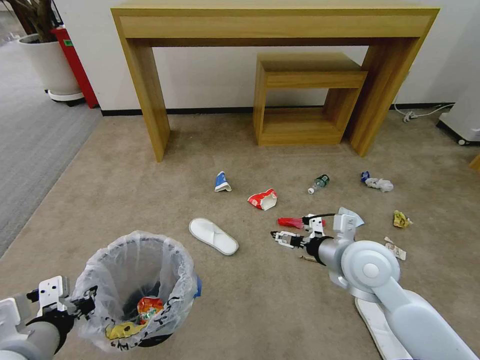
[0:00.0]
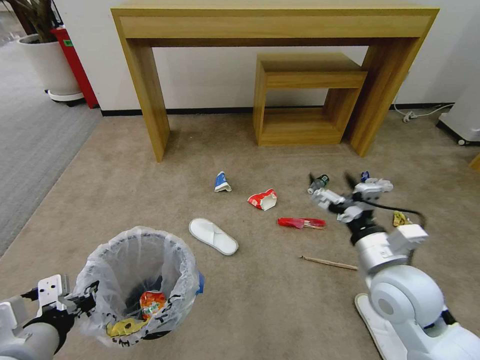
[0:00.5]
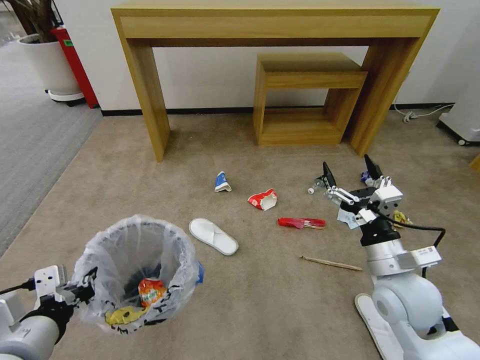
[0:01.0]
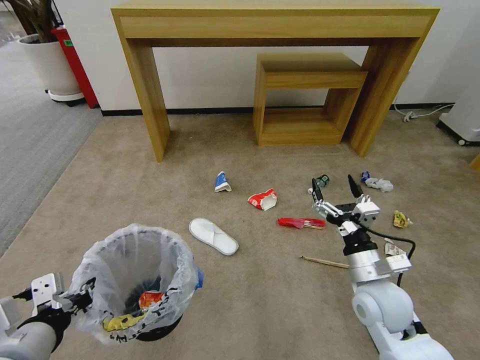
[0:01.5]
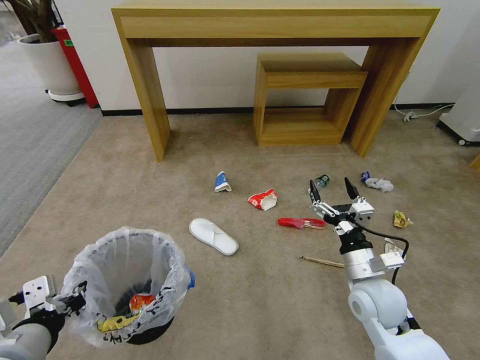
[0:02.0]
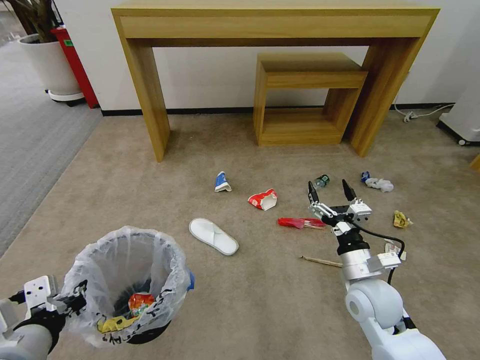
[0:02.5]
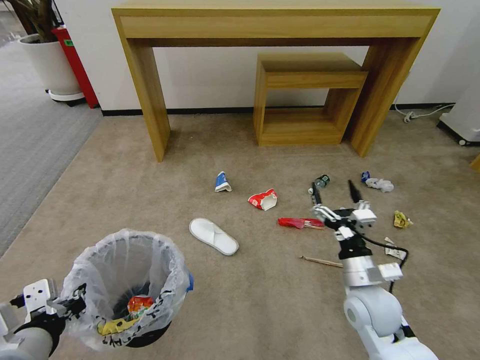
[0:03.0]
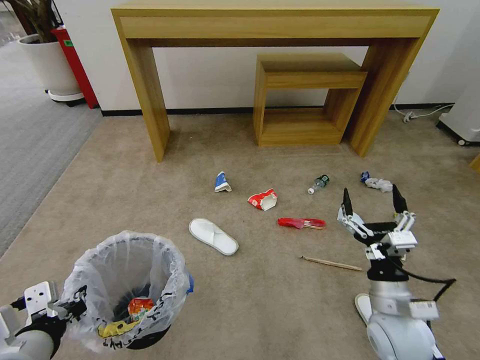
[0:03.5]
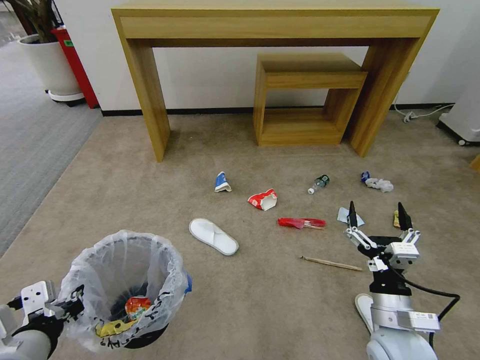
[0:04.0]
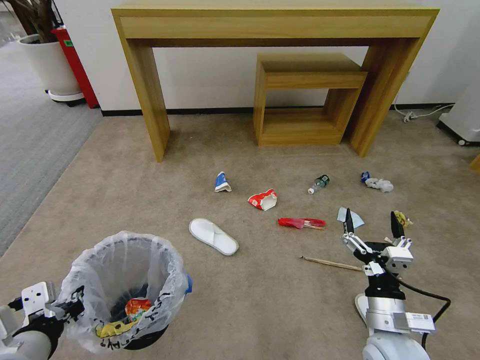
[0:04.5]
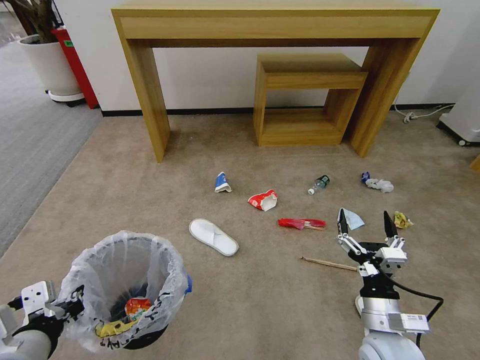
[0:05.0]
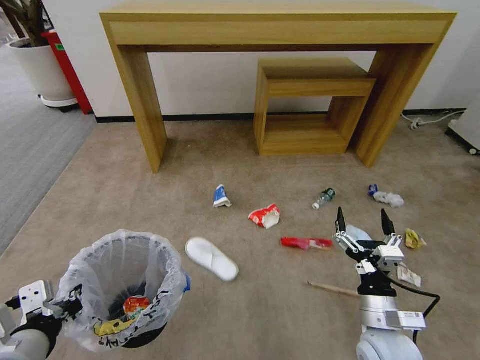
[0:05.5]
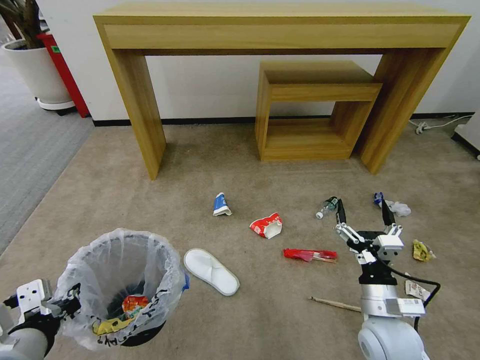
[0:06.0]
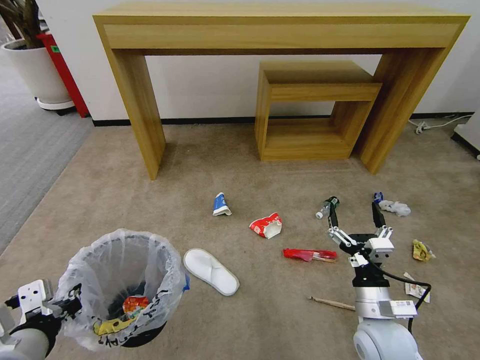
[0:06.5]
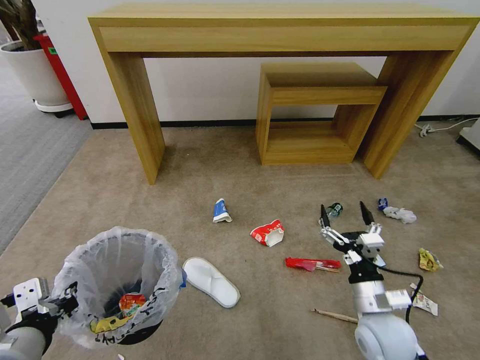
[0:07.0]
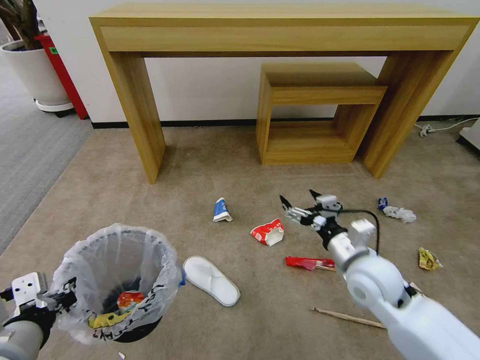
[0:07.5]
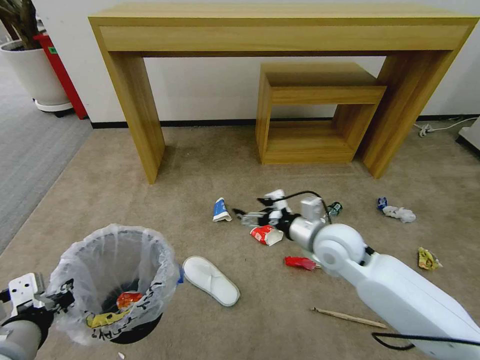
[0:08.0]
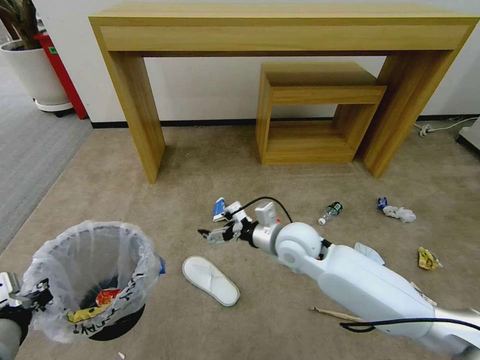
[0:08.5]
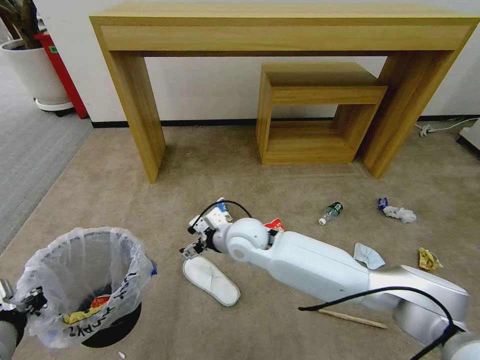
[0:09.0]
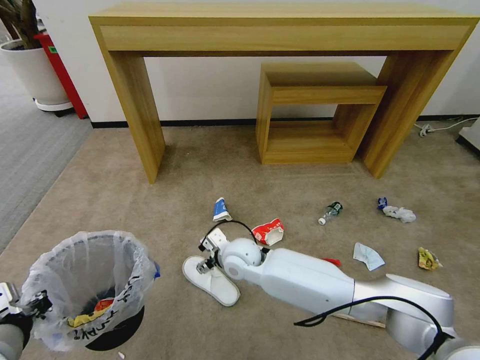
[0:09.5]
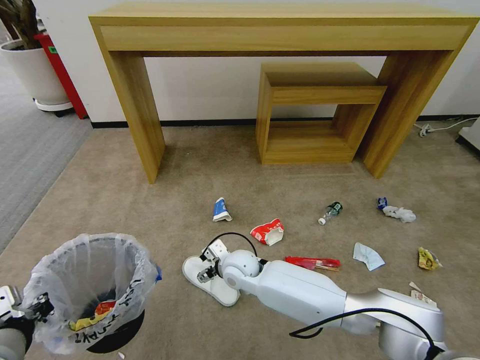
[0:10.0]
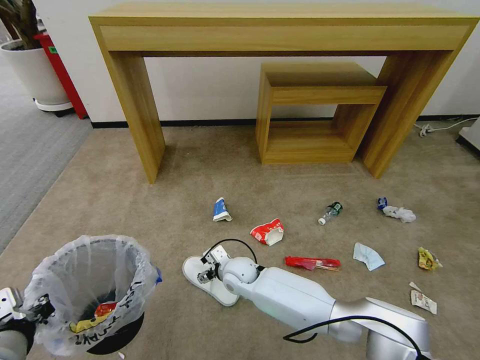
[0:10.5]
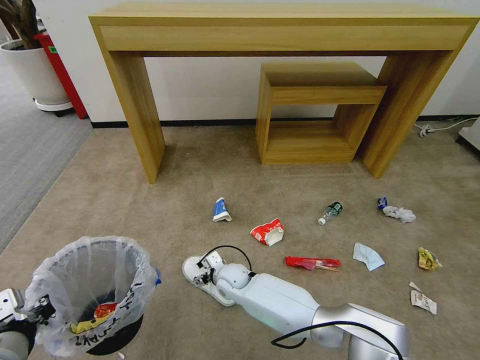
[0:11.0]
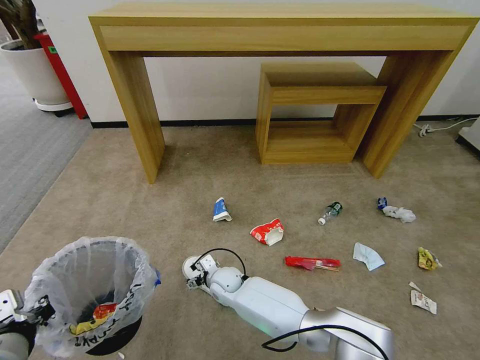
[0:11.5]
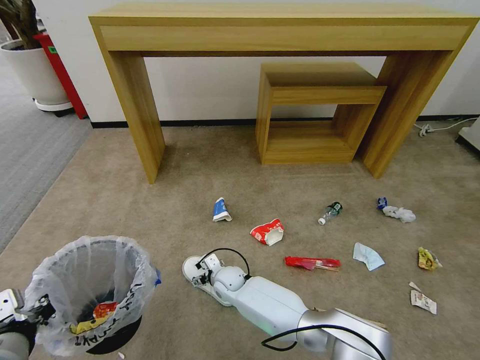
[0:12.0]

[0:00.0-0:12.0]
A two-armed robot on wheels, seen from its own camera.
Task of the whole recording: Pick up the trash bin and place the garbage on the floor into it.
0.0 to 2.0 s: The right gripper shifts some 10 cm downward.
2.0 to 4.0 s: The right gripper is displaced backward by approximately 10 cm.
6.0 to 8.0 s: The right gripper heads forward, upward and to the left, covering approximately 20 cm.
8.0 to 10.0 s: The right gripper moves to the left and downward, about 25 cm.
10.0 to 12.0 s: The right gripper travels downward by approximately 10 cm.

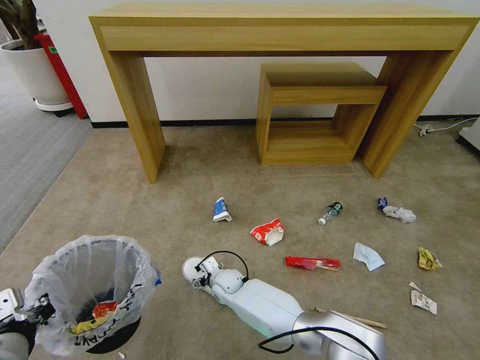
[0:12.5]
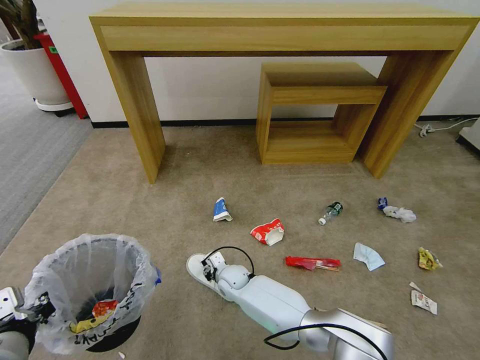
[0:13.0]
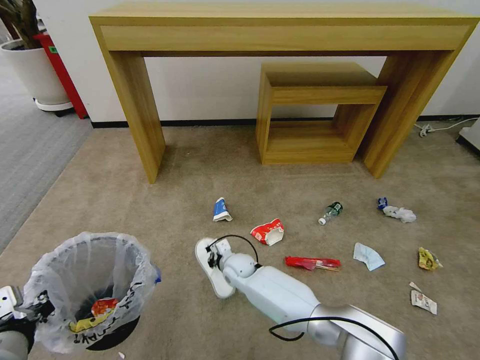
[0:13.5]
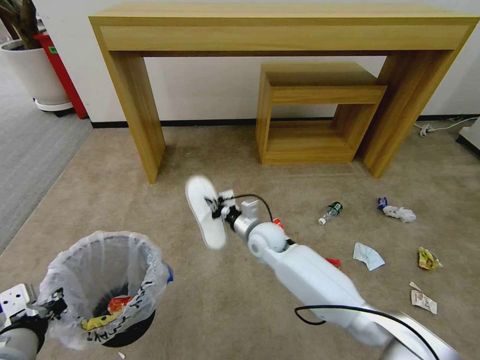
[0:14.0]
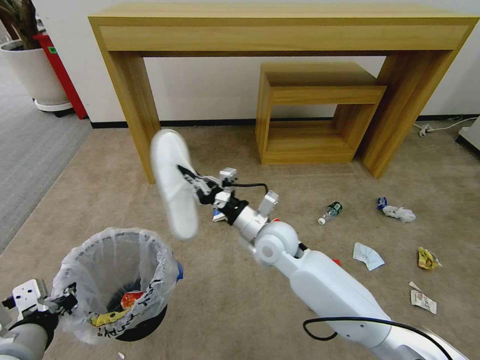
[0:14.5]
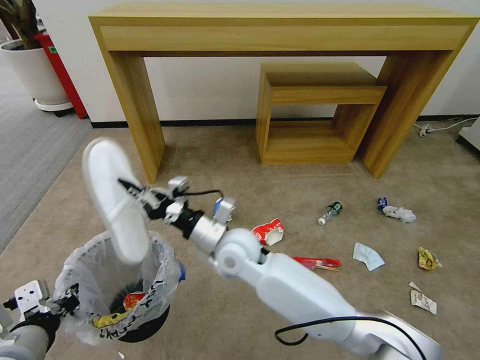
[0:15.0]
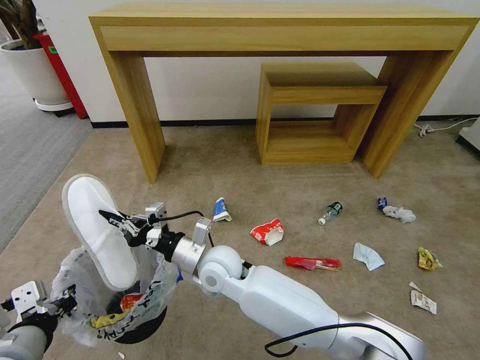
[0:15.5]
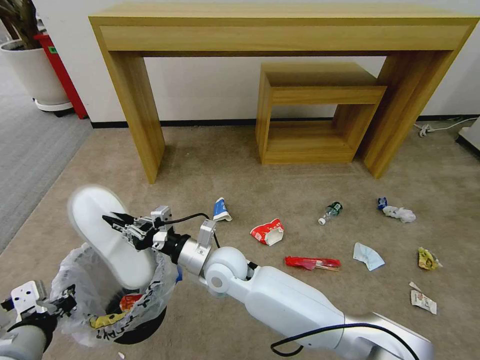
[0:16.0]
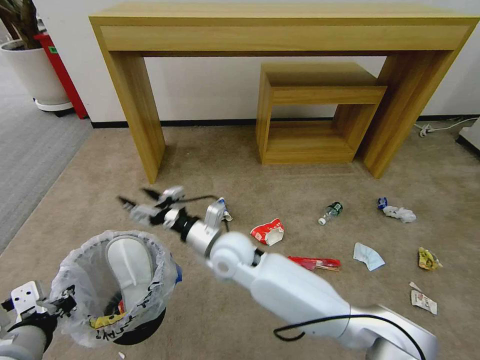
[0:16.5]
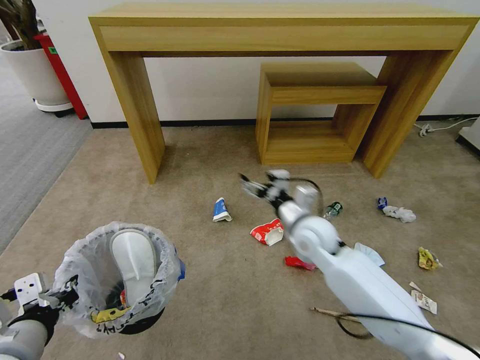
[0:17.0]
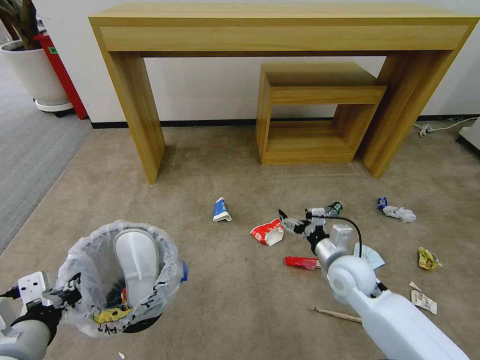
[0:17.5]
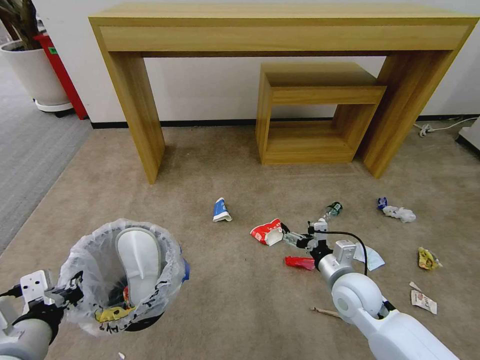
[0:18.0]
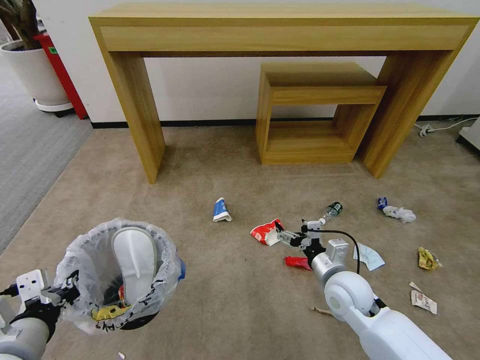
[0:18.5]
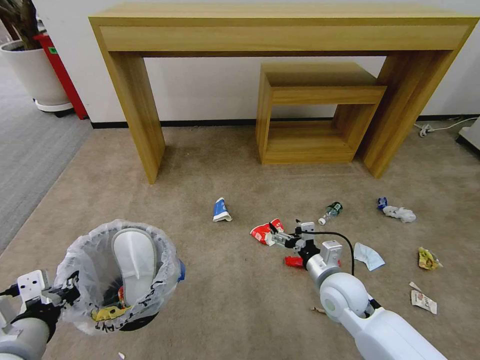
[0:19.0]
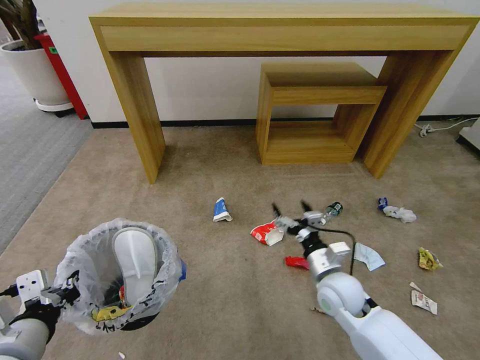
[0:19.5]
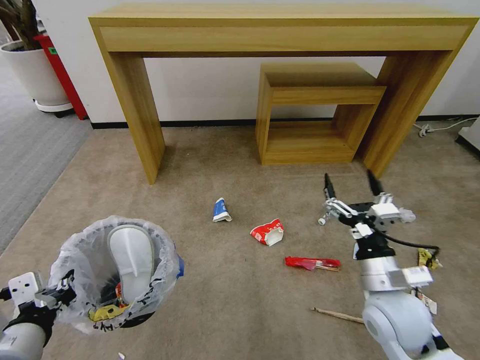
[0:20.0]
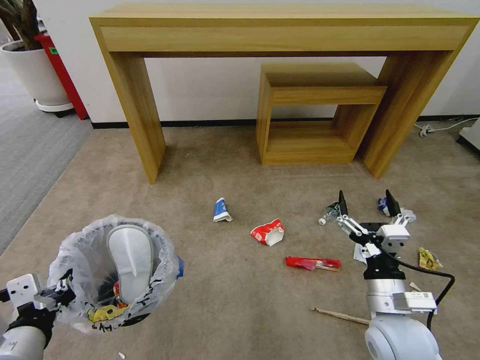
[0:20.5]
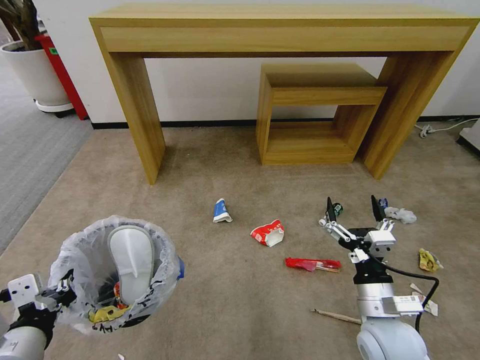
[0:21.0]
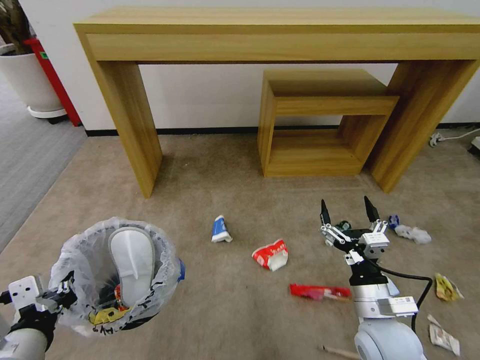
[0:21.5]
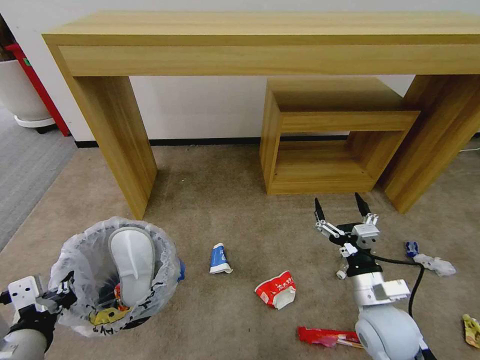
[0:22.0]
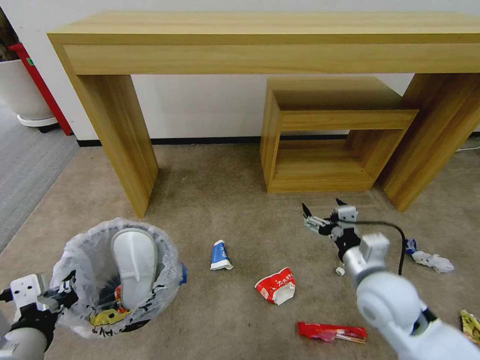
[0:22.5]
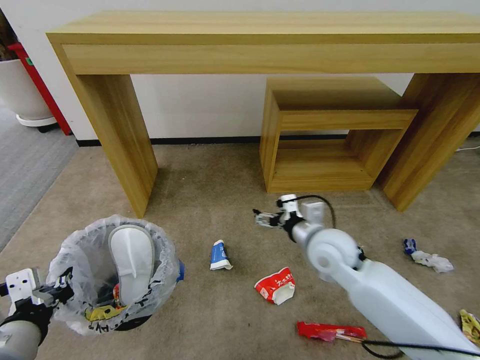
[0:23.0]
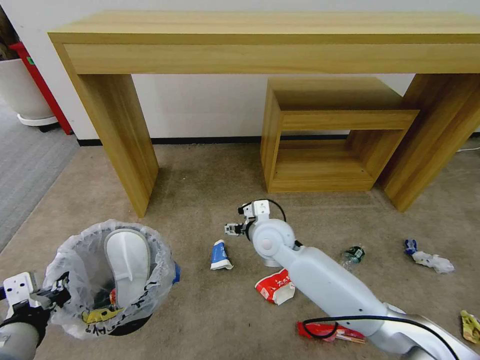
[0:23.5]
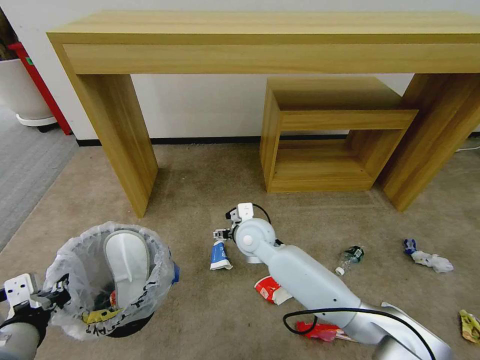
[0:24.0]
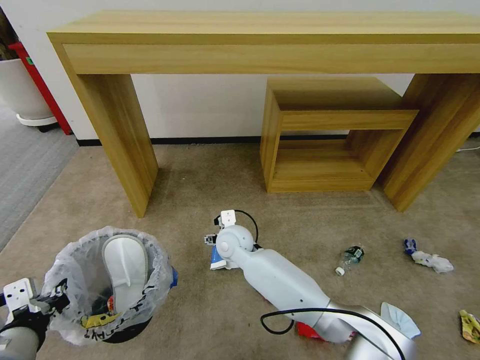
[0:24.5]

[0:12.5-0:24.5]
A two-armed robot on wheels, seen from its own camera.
Task of the whole recording: Pick up the trash bin and place the garbage on the floor into it.
12.5 to 14.5 s: The right gripper moves upward and to the right, roughly 25 cm, and closes its fingers.
14.5 to 16.5 s: The right gripper travels to the left by roughly 10 cm, and opens.
16.5 to 18.5 s: The right gripper shifts about 25 cm to the right.
18.5 to 20.5 s: The right gripper goes some 10 cm backward and upward.
20.5 to 22.5 s: The right gripper moves forward, some 5 cm.
22.5 to 24.5 s: The right gripper moves to the left and forward, approximately 30 cm.

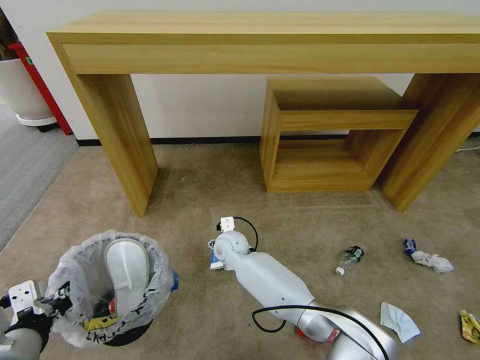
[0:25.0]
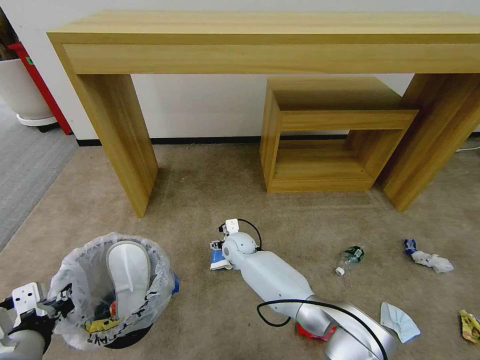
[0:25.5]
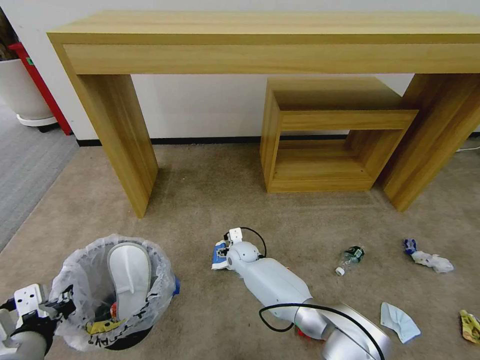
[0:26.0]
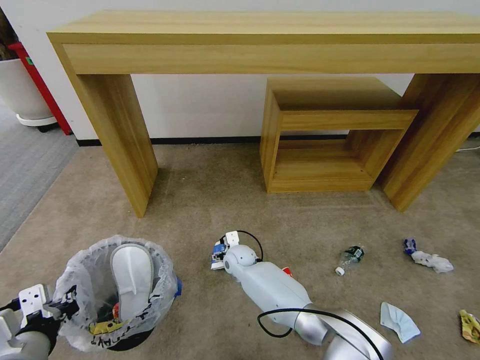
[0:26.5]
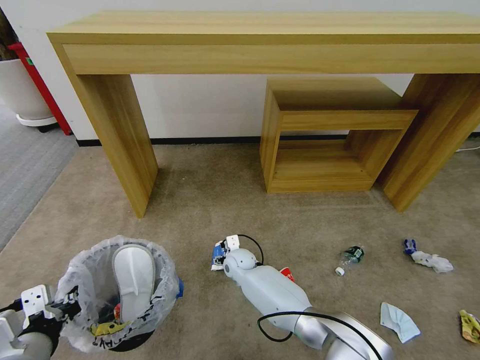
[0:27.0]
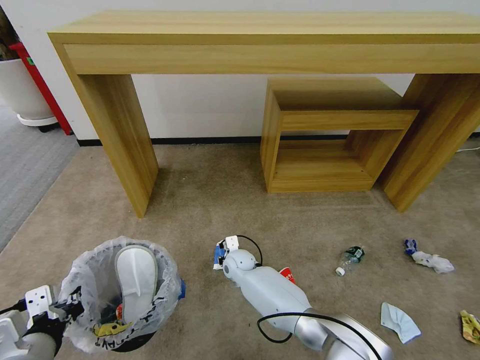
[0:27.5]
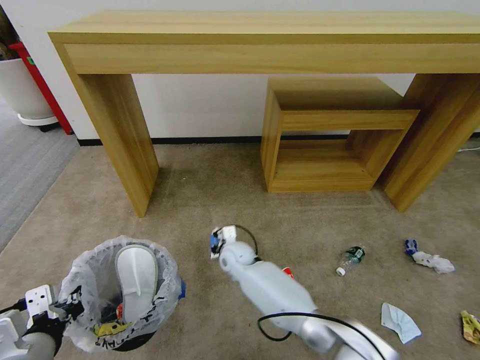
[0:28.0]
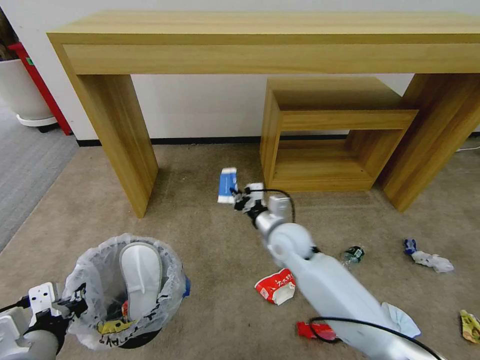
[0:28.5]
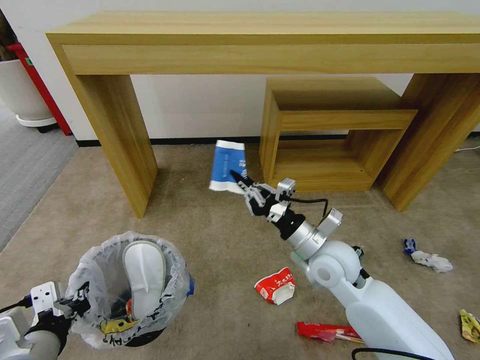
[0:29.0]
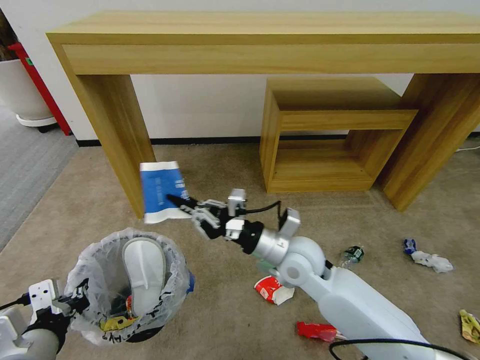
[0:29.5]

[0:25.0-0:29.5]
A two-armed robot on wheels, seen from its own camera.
Task of the whole recording: Pick up the trash bin and place the garbage on the floor into it.
25.0 to 27.0 s: The right gripper moves downward, about 10 cm.
27.0 to 29.5 s: The right gripper is displaced upward, to the right and backward by some 25 cm, and closes up.
